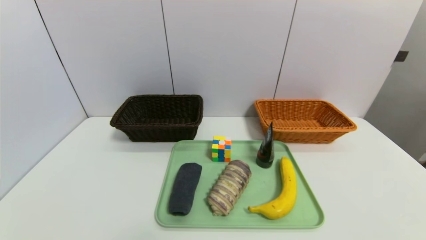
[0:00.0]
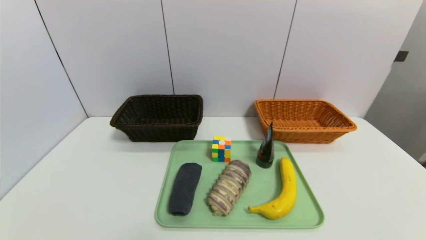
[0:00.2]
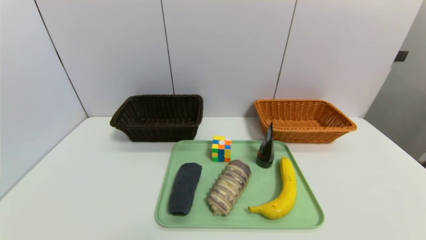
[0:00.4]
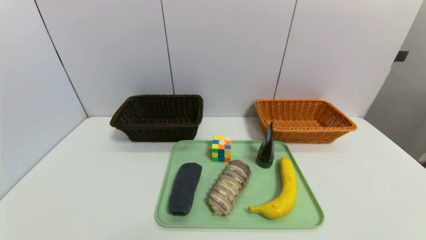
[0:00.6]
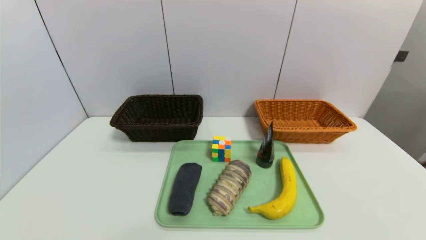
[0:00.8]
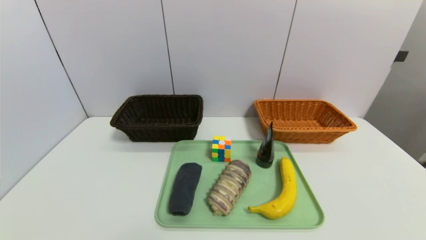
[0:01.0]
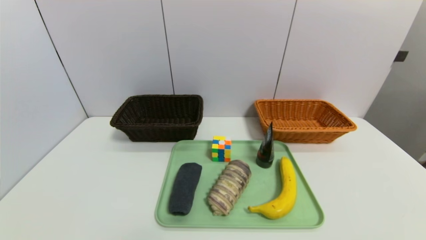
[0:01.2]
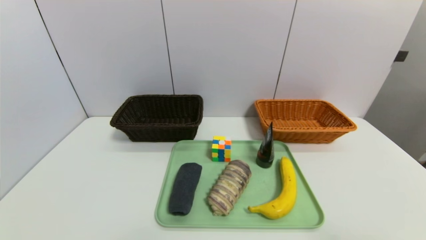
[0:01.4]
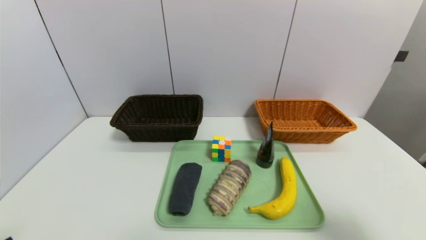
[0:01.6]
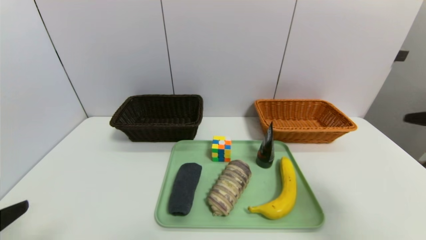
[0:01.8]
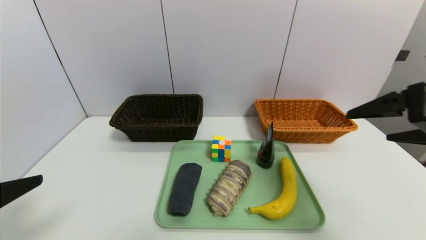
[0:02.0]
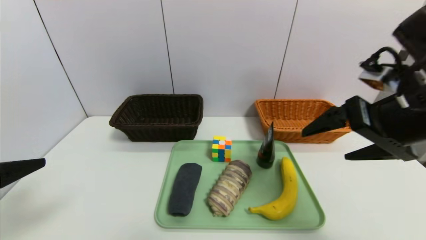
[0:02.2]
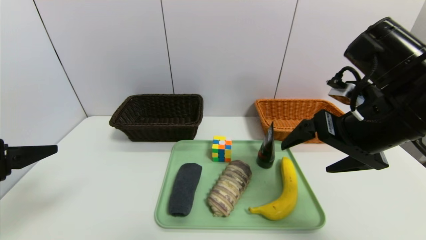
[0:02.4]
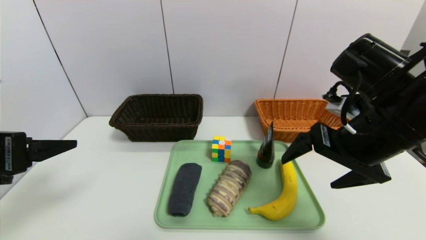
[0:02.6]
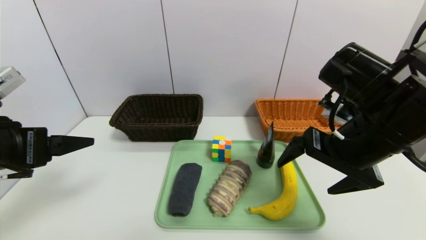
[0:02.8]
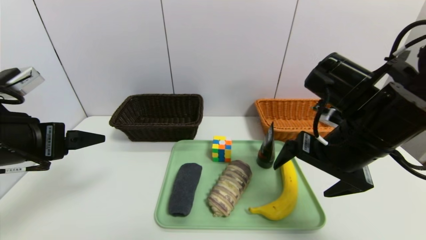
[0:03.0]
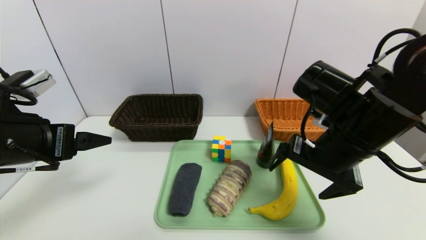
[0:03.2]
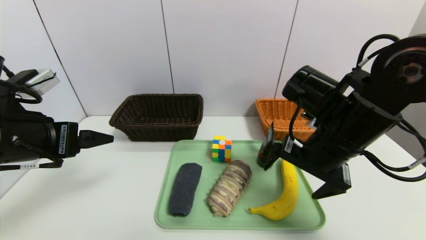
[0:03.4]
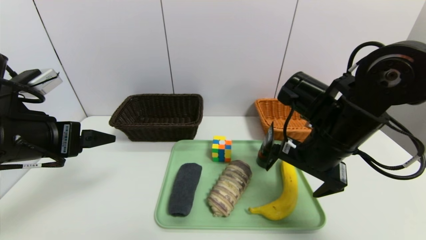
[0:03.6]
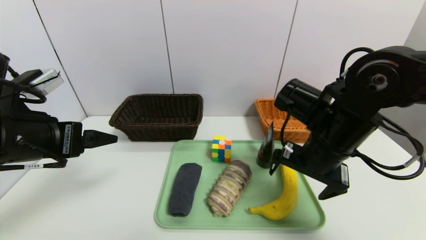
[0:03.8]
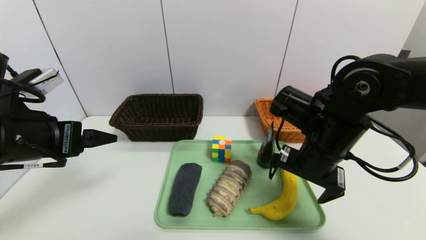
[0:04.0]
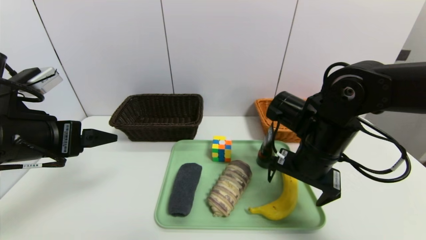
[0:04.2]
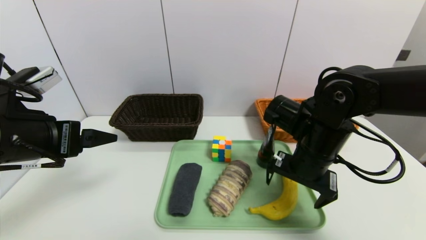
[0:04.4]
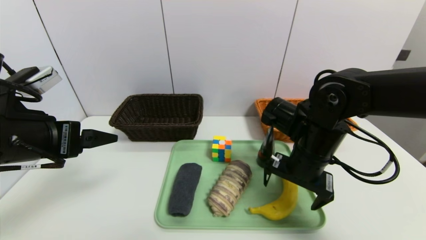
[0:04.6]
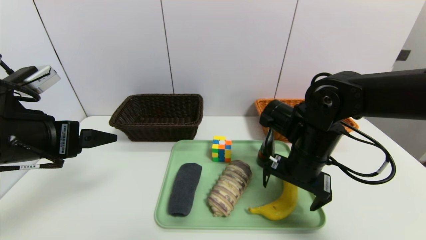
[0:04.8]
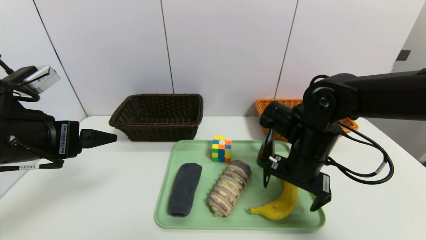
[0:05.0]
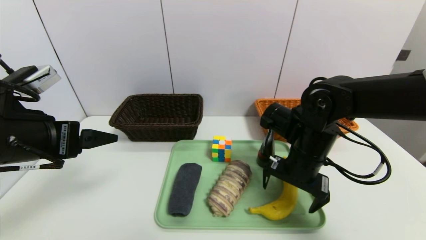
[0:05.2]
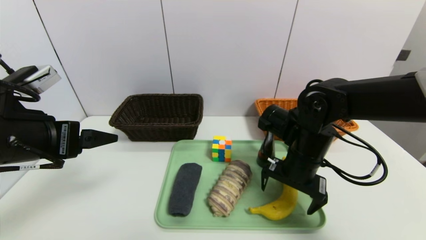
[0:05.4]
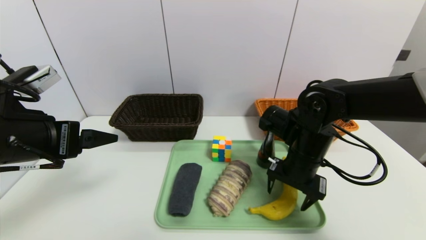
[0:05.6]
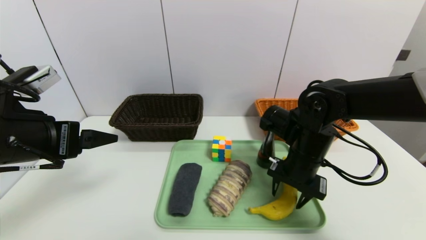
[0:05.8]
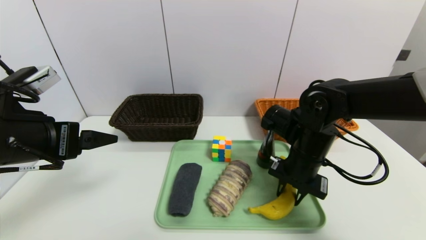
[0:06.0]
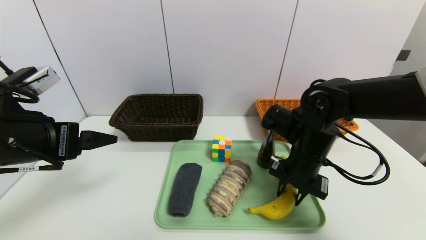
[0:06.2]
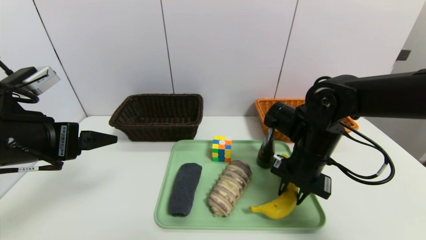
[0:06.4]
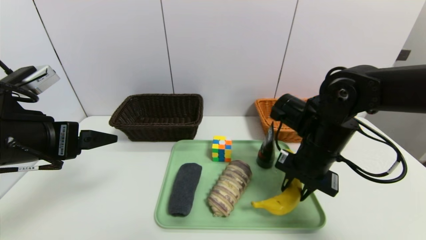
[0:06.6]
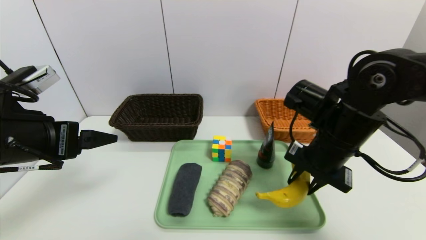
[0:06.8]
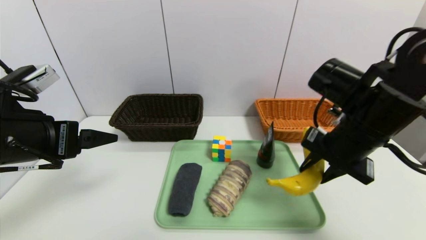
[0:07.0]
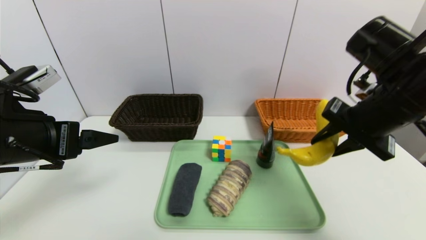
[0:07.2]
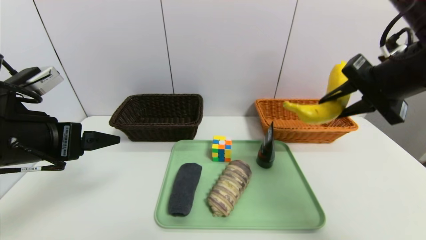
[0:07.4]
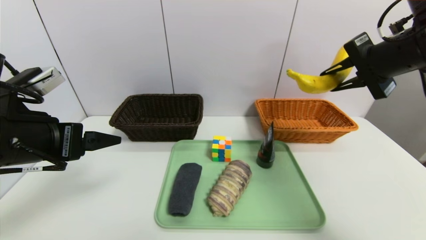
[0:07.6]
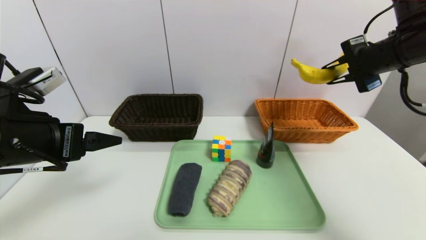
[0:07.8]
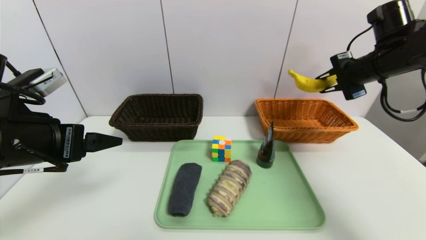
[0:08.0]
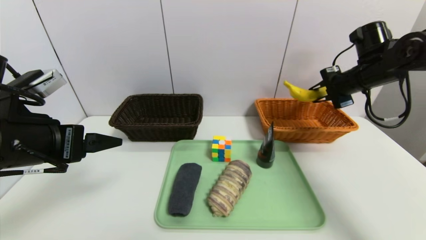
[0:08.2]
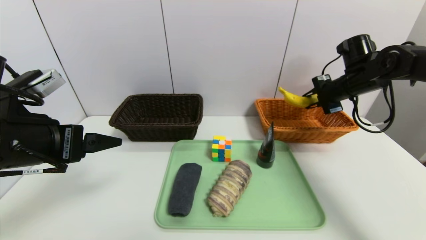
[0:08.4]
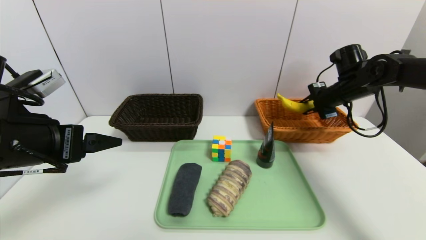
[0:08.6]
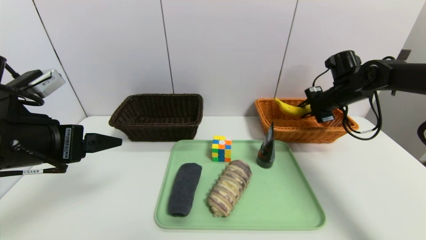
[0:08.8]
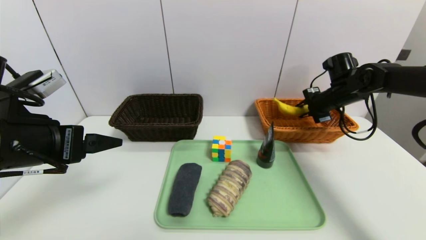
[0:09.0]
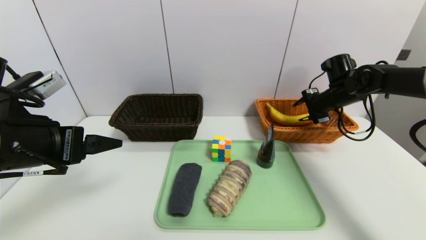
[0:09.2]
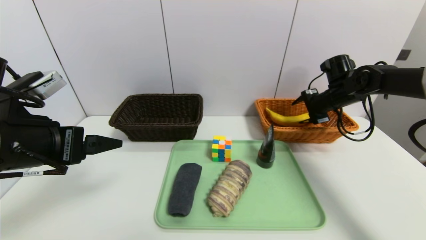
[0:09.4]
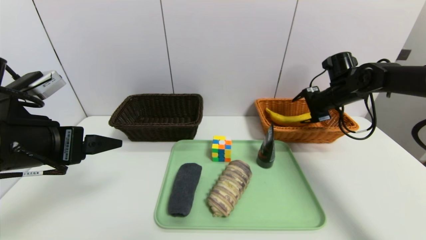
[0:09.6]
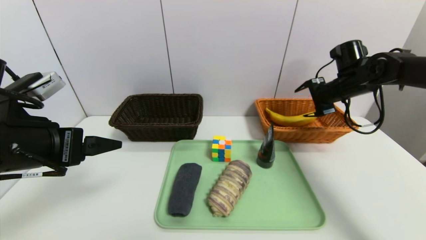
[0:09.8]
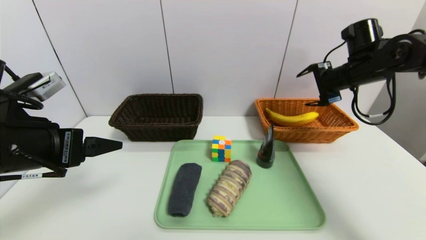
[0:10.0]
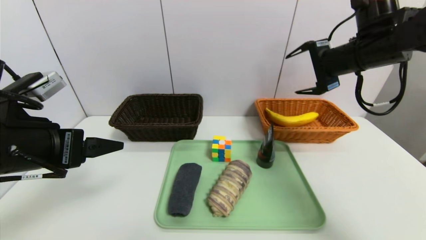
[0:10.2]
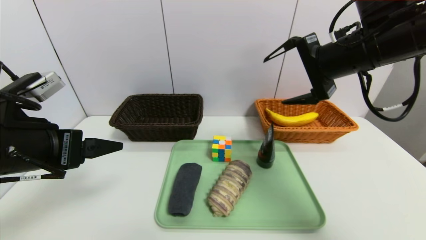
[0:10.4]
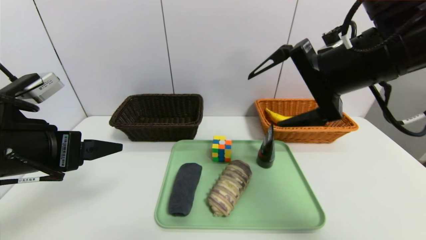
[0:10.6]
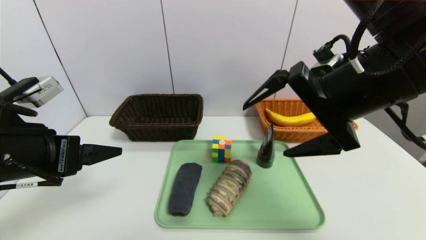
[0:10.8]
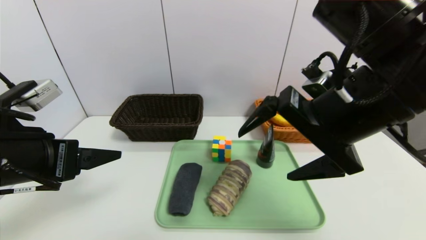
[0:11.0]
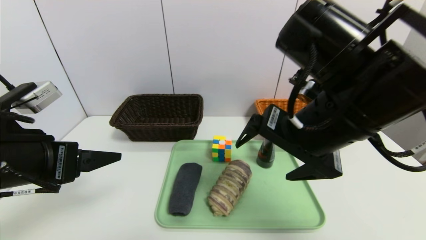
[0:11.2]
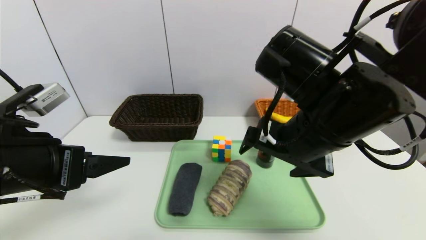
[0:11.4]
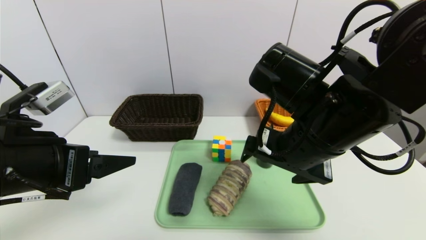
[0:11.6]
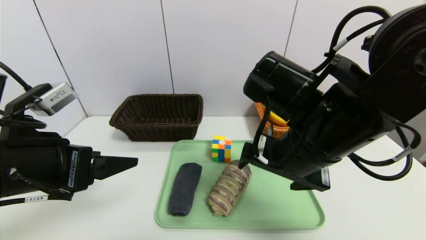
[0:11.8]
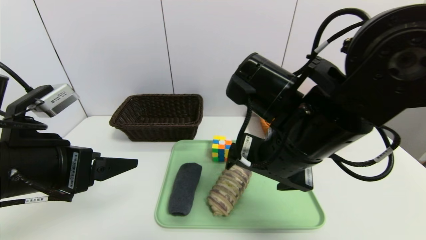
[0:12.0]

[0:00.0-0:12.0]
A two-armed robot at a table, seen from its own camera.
Task of the whole recording: place the food in the right basket with the right gripper, and place the non food items in the left basket with the left gripper.
Step, 0:00.0 to 0:09.6: Grasp the banana and put it in the right basket.
0:00.0 to 0:01.6: The right gripper is displaced upward and forward by about 20 cm.
0:01.6 to 0:03.0: The right gripper moves to the left and forward, some 20 cm. The left gripper goes some 15 cm forward.
0:03.0 to 0:04.4: The right gripper heads downward, covering roughly 5 cm.
0:04.4 to 0:06.0: The right gripper closes up.
0:06.0 to 0:07.6: The right gripper is displaced upward and to the right by roughly 20 cm.
0:07.6 to 0:09.0: The right gripper goes roughly 20 cm forward and downward.
0:09.0 to 0:10.4: The right gripper goes roughly 25 cm backward, upward and to the left, and opens up.
0:10.4 to 0:12.0: The right gripper shifts roughly 15 cm to the left, downward and backward.

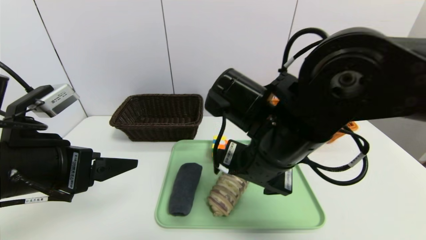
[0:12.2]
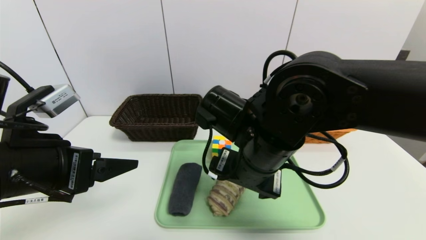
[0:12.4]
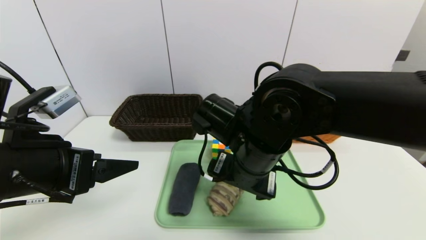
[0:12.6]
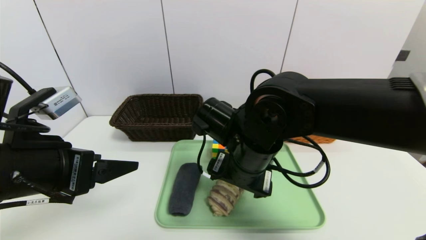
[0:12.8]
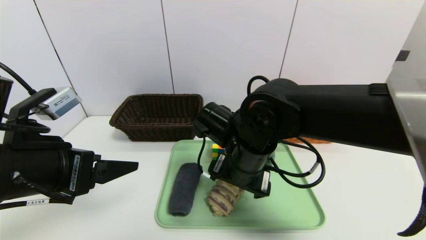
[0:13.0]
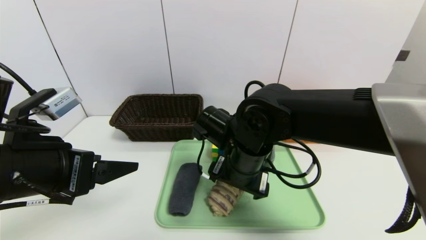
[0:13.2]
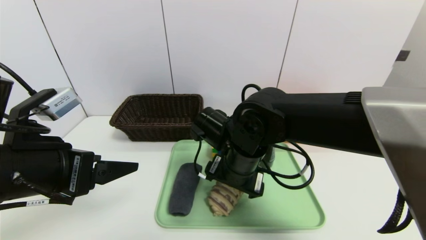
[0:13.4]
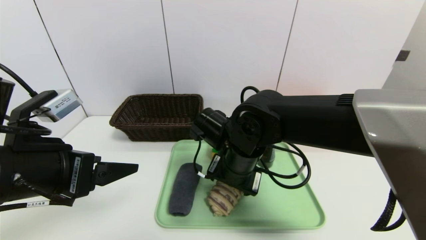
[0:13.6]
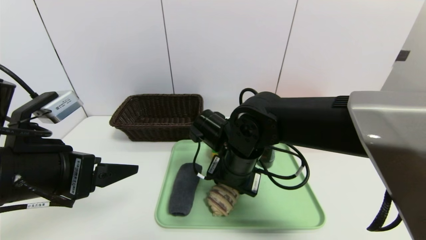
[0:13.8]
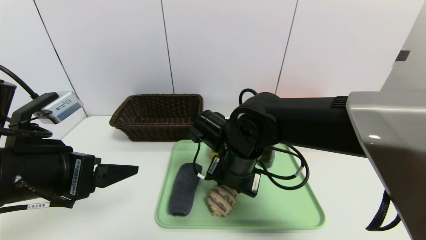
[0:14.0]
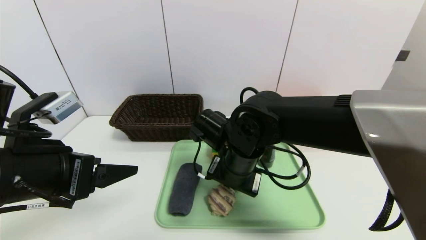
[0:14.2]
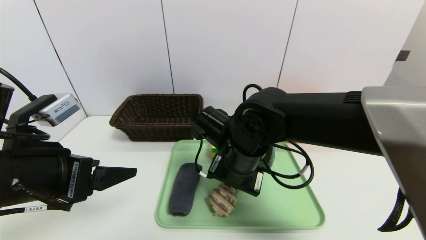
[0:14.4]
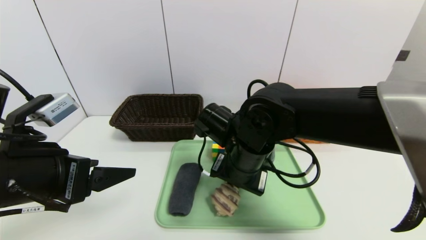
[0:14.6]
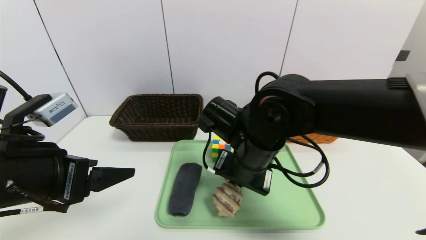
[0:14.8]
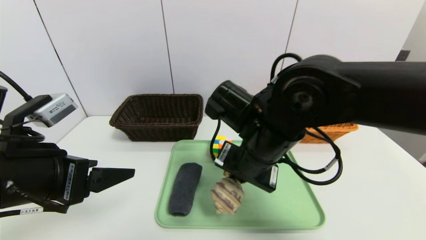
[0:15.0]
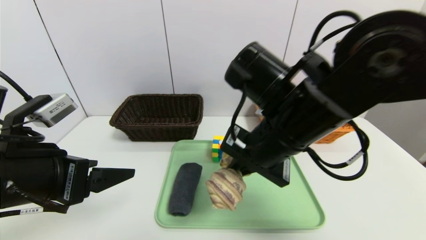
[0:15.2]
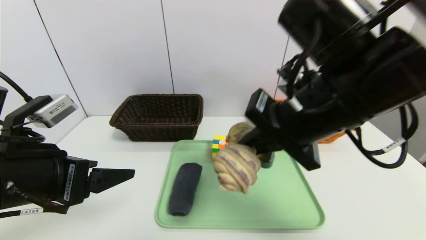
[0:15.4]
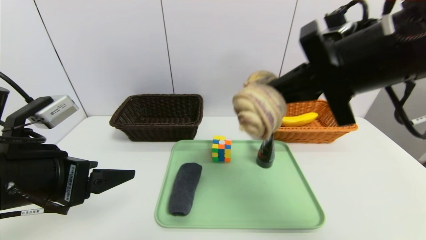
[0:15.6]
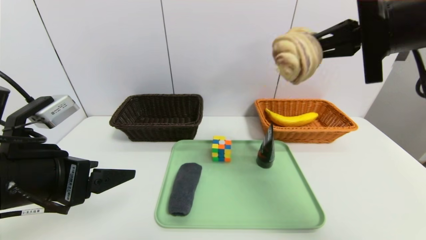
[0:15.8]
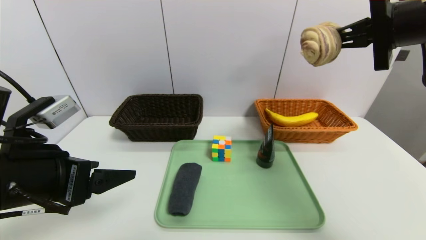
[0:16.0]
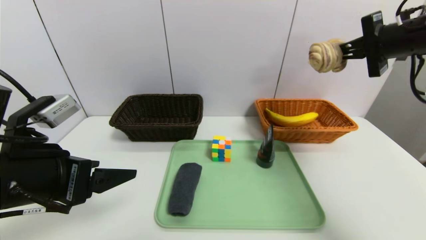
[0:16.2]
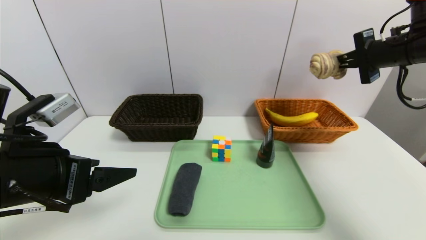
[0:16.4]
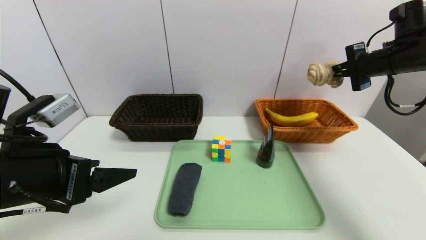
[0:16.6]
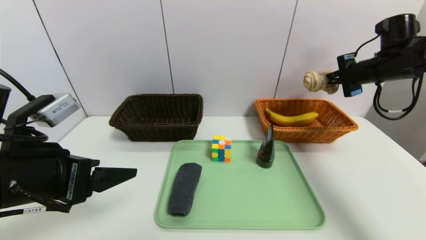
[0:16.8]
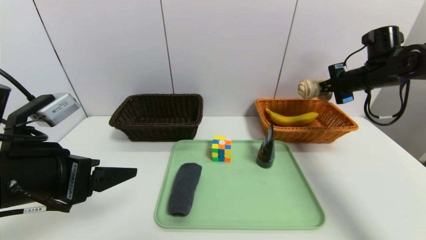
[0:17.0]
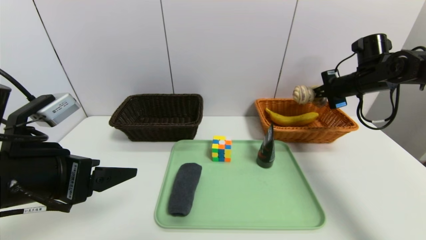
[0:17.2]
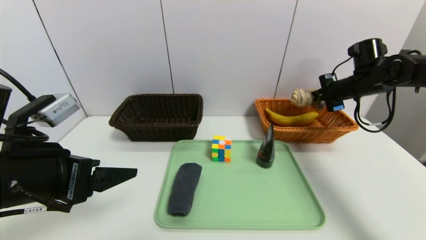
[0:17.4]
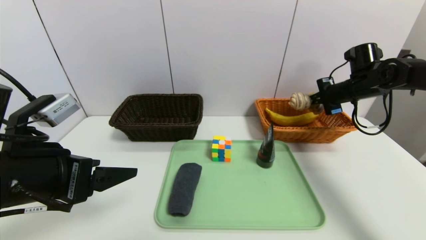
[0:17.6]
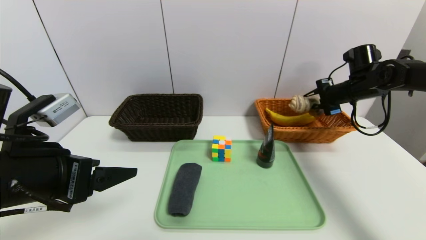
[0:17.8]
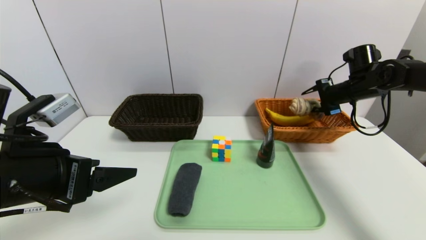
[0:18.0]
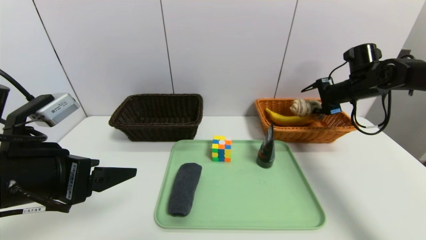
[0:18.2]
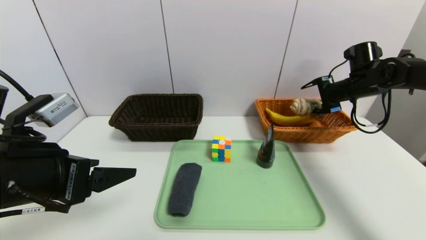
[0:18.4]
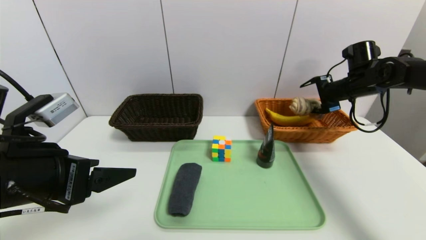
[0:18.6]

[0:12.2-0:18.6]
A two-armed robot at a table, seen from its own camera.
Task of the whole recording: place the food in the right basket with the right gripper, and place the non food items in the left basket with the left gripper.
0:12.2 to 0:13.8: The right gripper travels downward and forward by some 10 cm, and closes its fingers.
0:13.8 to 0:15.4: The right gripper moves upward, to the right and backward, some 20 cm, and closes.
0:15.4 to 0:17.0: The right gripper travels to the right and forward by roughly 30 cm.
0:17.0 to 0:18.6: The right gripper opens.
